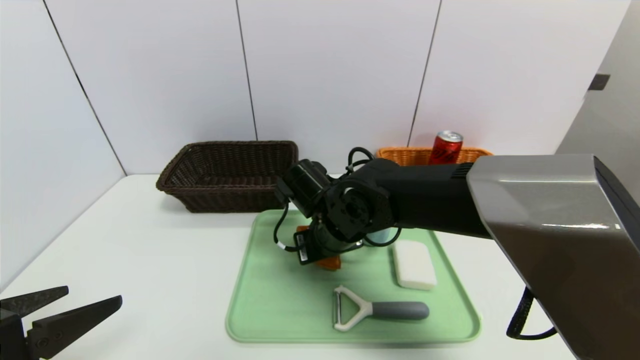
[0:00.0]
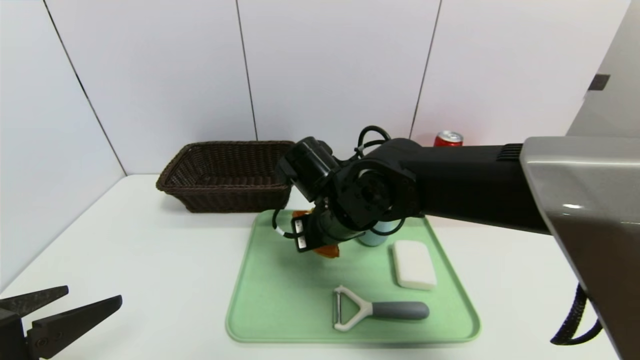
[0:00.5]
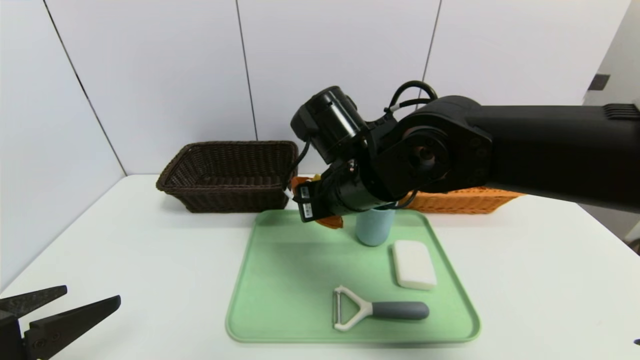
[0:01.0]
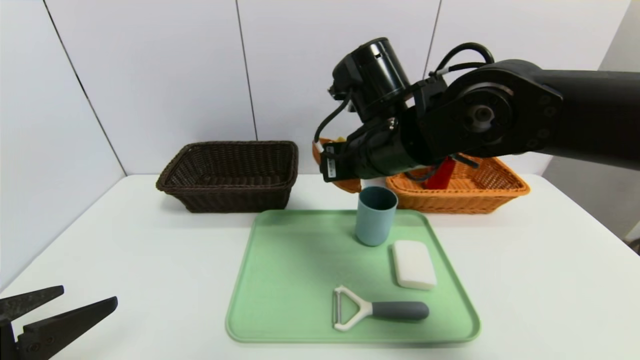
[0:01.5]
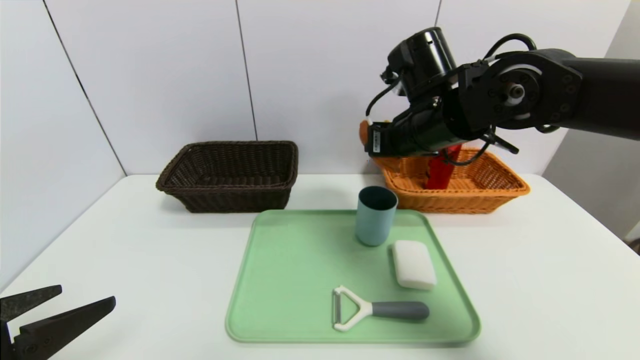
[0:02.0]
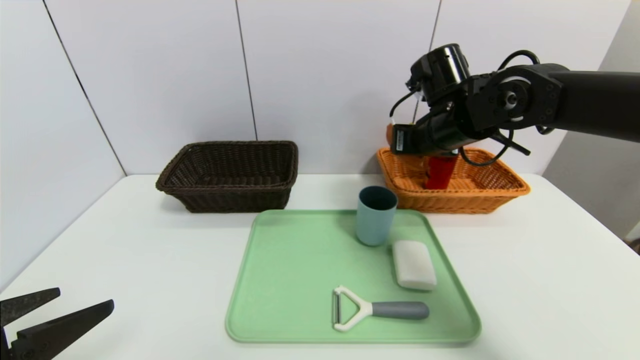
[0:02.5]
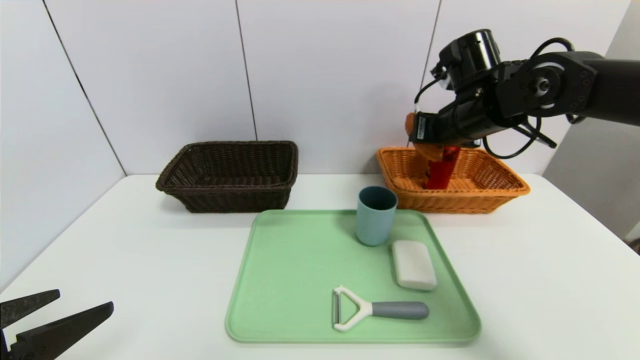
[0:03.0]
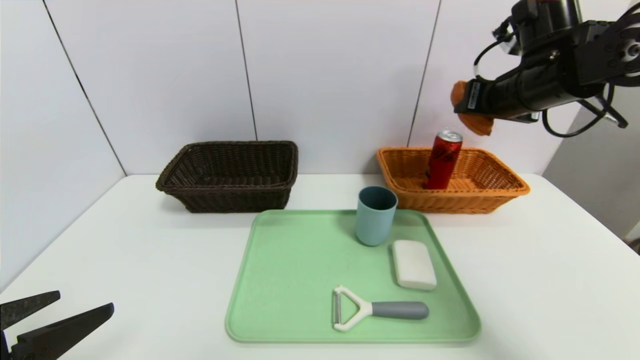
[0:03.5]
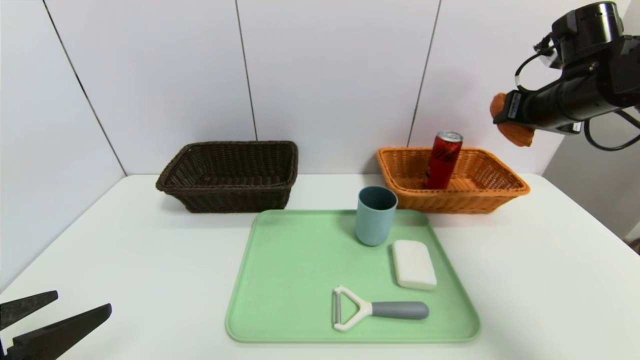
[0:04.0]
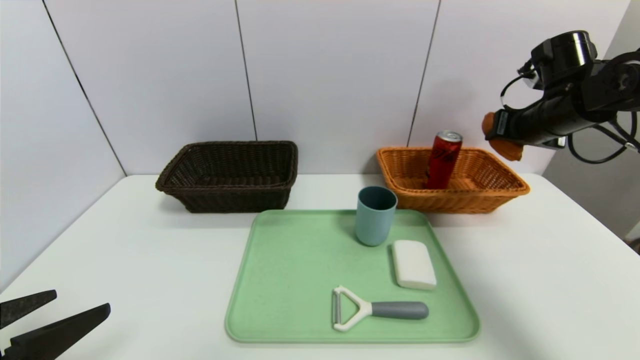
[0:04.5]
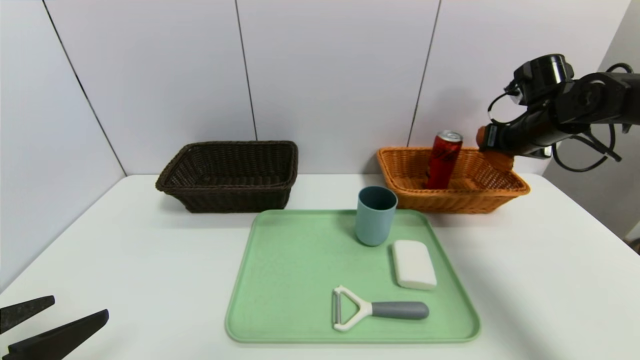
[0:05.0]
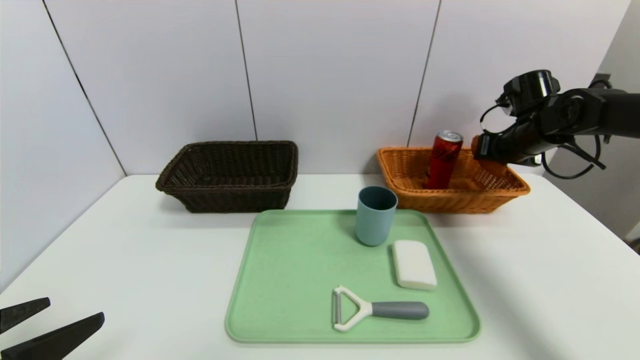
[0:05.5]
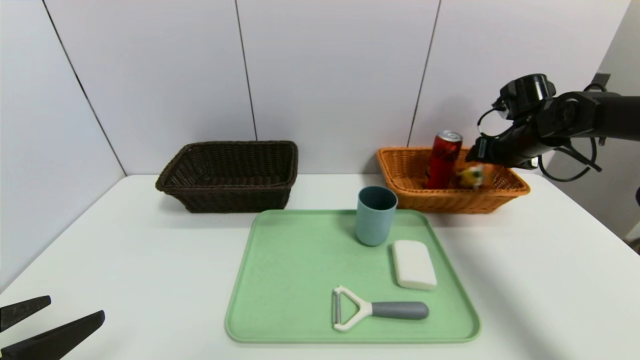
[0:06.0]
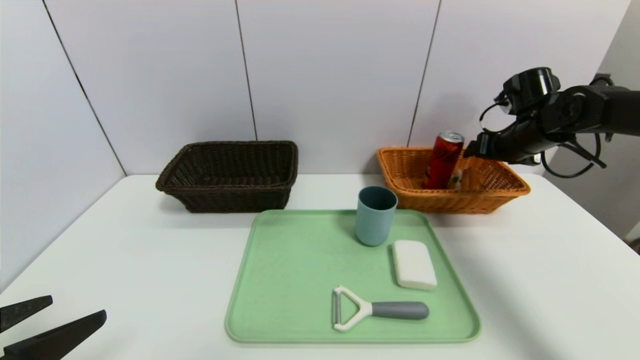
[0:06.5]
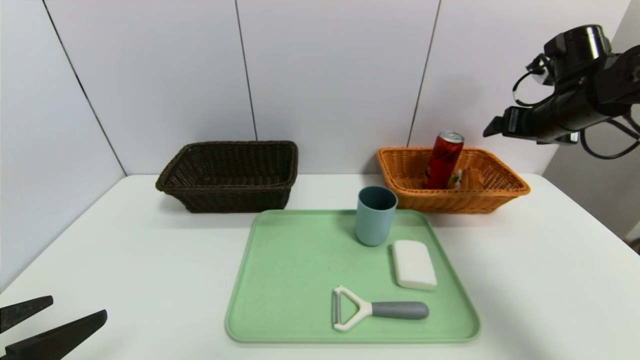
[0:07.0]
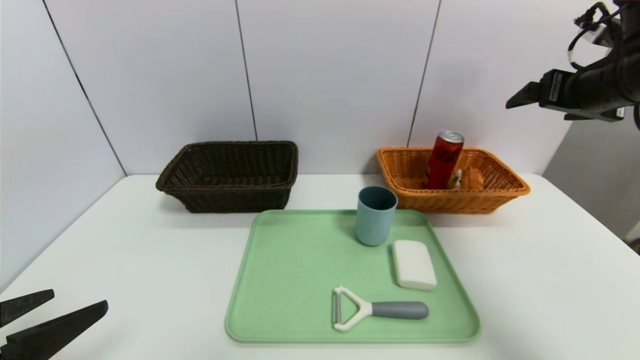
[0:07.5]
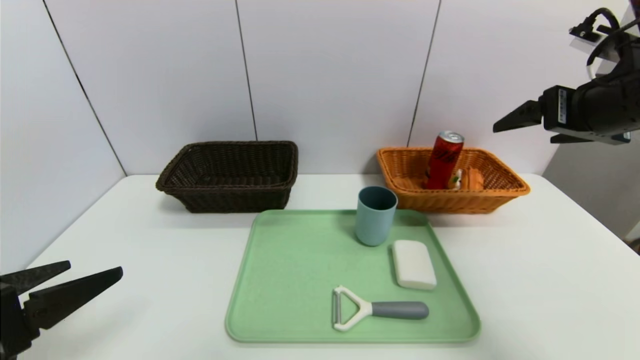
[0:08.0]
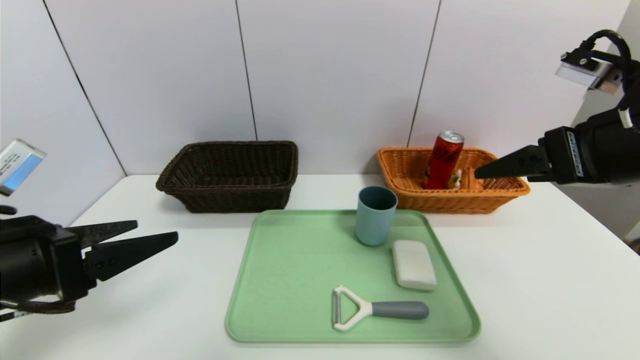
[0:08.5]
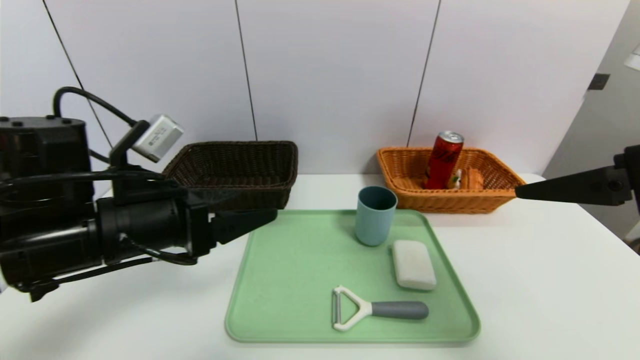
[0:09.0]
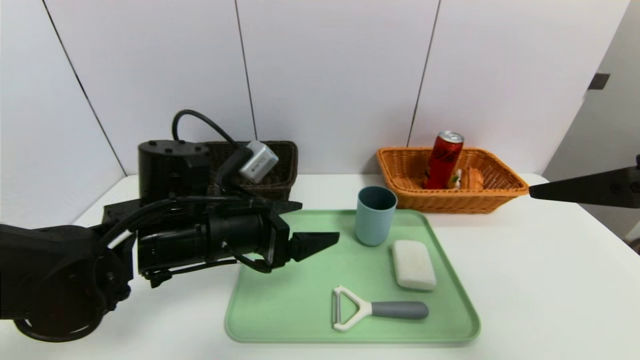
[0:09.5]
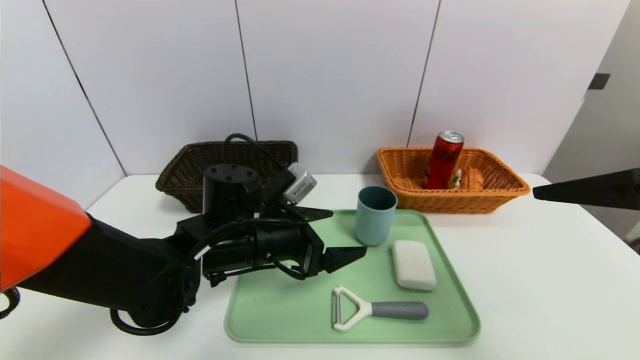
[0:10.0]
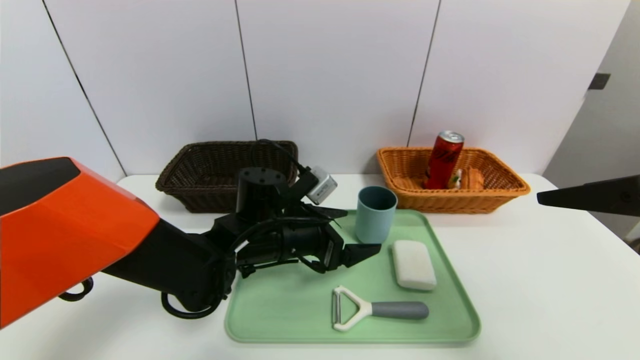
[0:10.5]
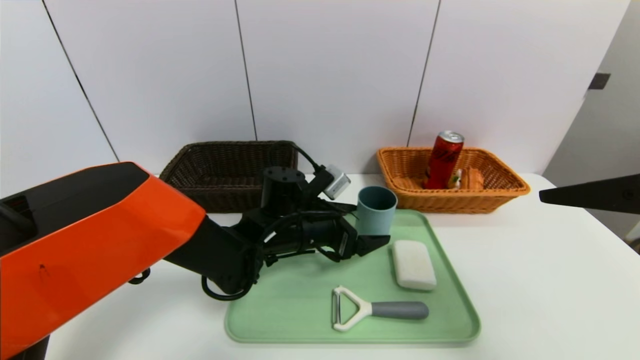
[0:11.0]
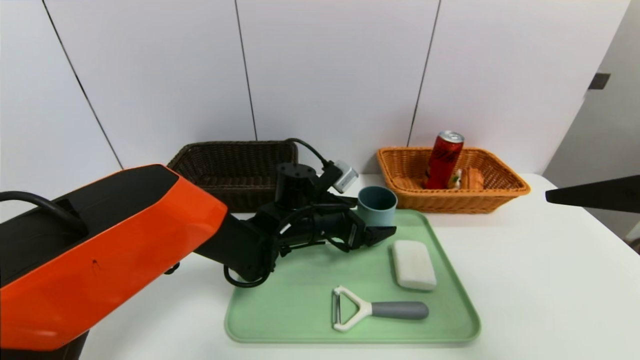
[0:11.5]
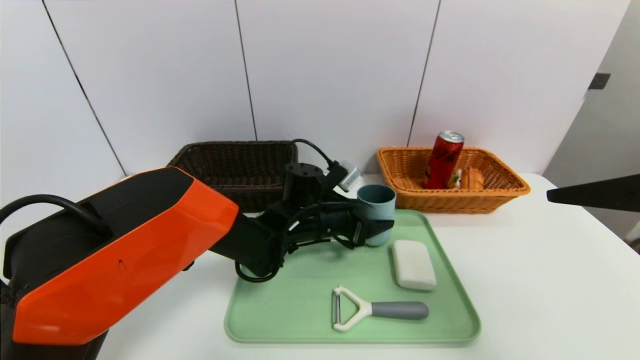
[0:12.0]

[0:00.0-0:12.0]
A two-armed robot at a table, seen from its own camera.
Task of the whole recording: place the food in the right basket with the right gripper, and place the non food items in the left basket with the left gripper.
Step, 0:00.0 to 0:07.0: Grasp the waffle and put it in the right basket.
0:00.0 to 0:02.0: The right gripper travels upward and to the right by about 20 cm.
0:02.0 to 0:04.0: The right gripper is displaced to the right by about 20 cm.
0:04.0 to 0:06.0: The right gripper moves downward and forward, some 10 cm, and opens its fingers.
0:06.0 to 0:08.0: The right gripper shifts approximately 20 cm backward and upward, and opens up.
0:08.0 to 0:10.0: The right gripper heads backward, covering about 10 cm; the left gripper is displaced to the right and forward by approximately 25 cm.
0:10.0 to 0:12.0: The left gripper goes about 10 cm forward and to the right, and closes.

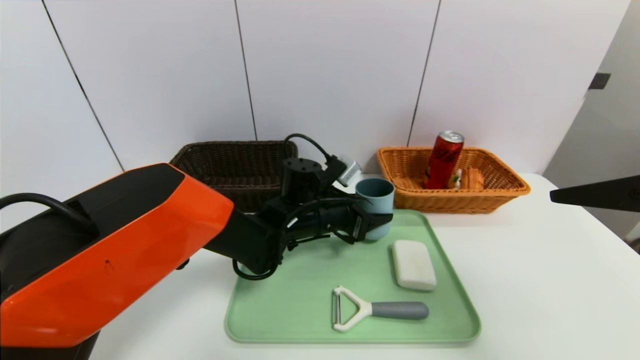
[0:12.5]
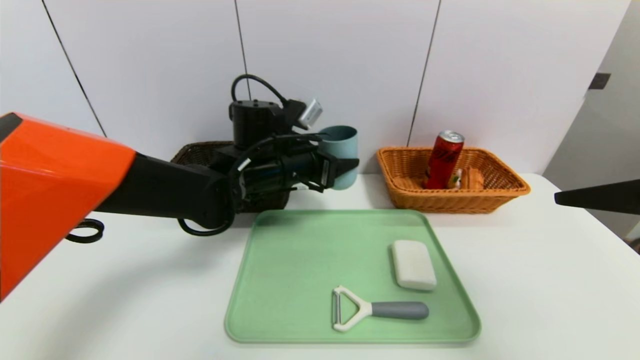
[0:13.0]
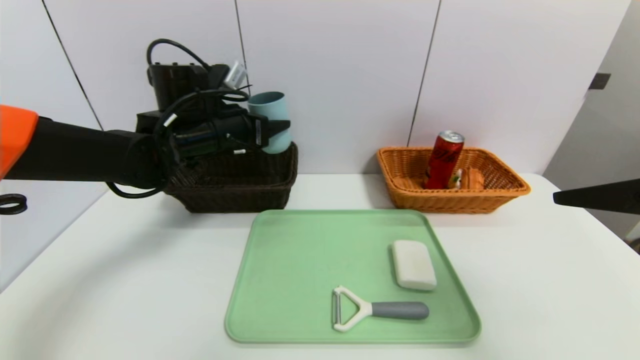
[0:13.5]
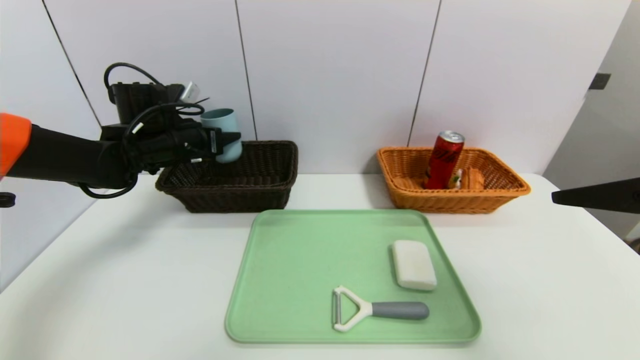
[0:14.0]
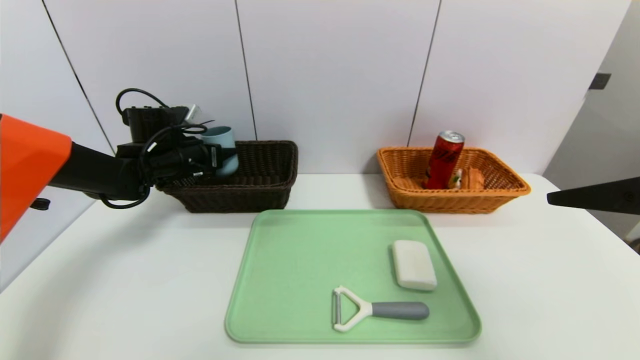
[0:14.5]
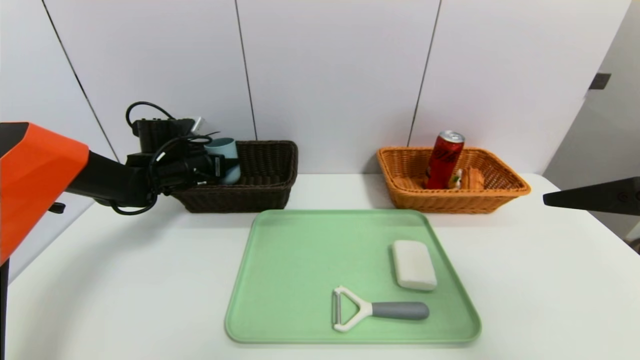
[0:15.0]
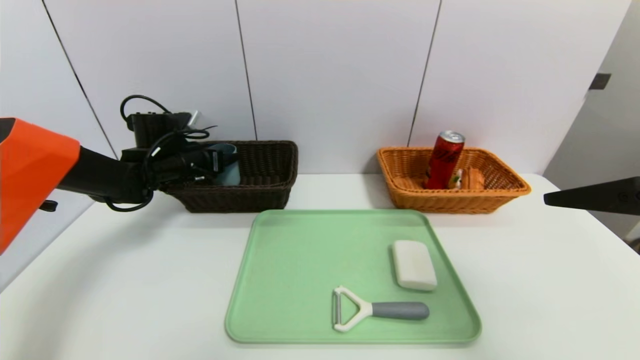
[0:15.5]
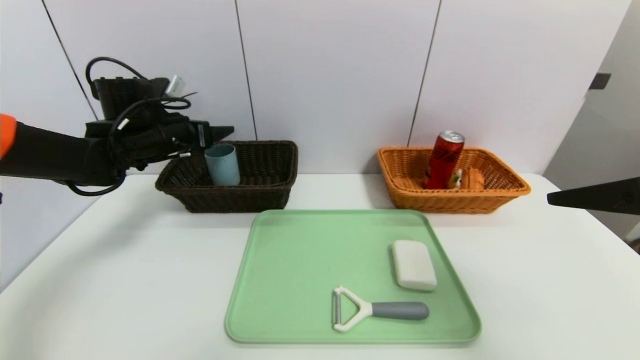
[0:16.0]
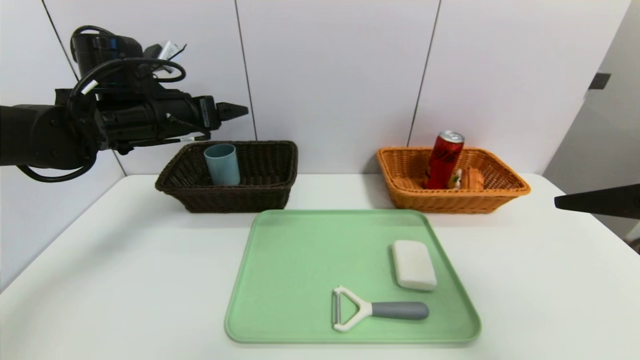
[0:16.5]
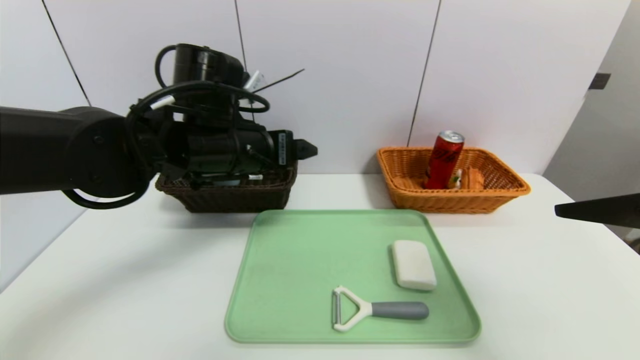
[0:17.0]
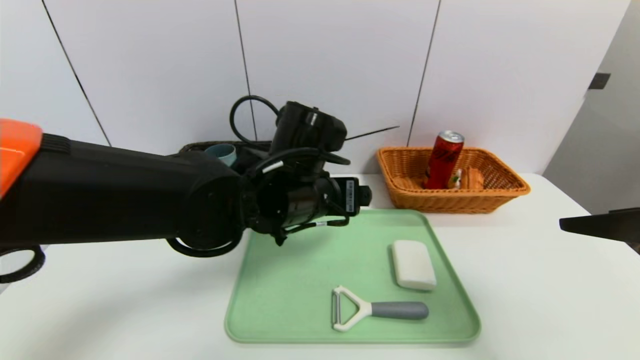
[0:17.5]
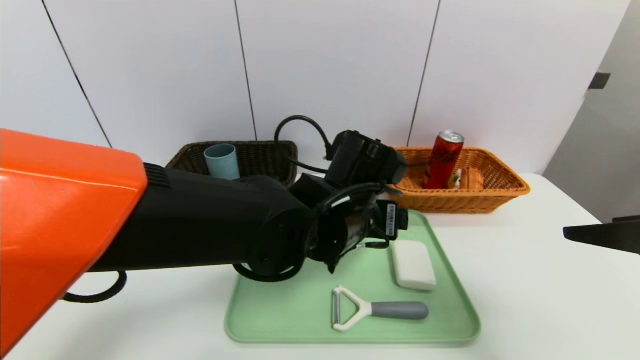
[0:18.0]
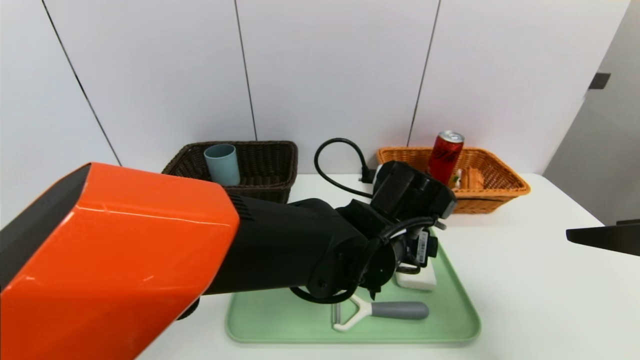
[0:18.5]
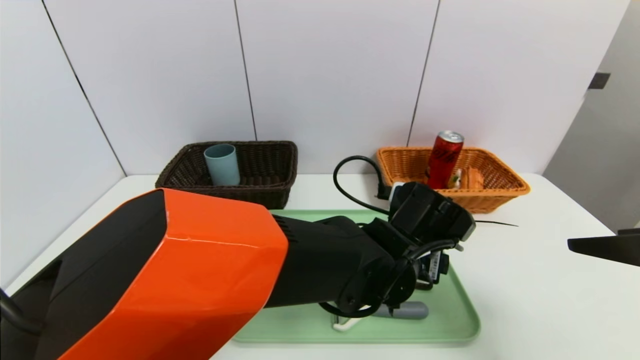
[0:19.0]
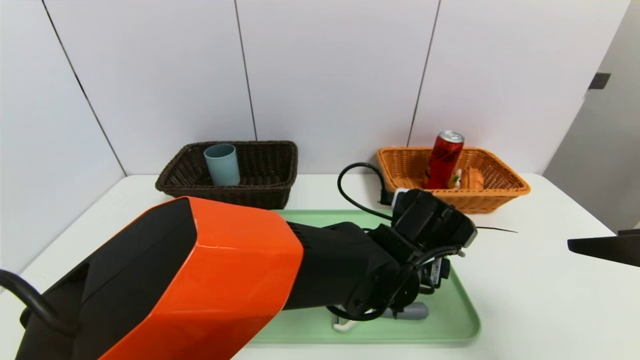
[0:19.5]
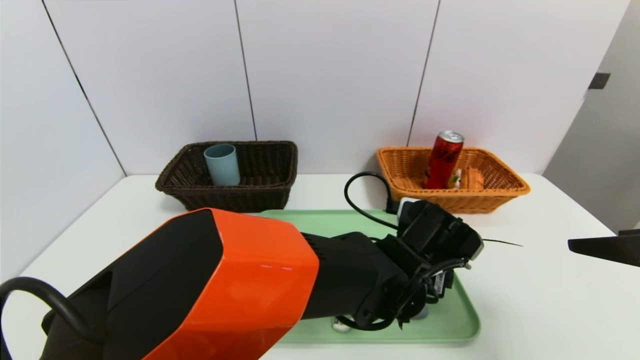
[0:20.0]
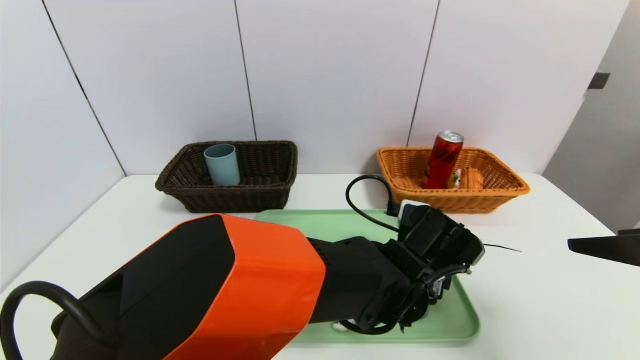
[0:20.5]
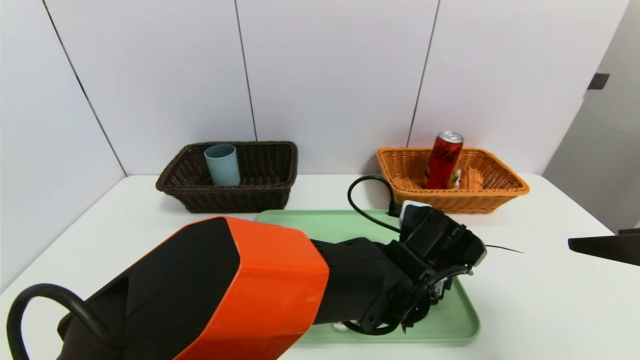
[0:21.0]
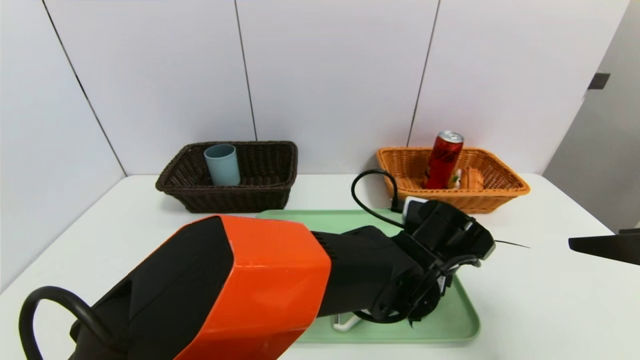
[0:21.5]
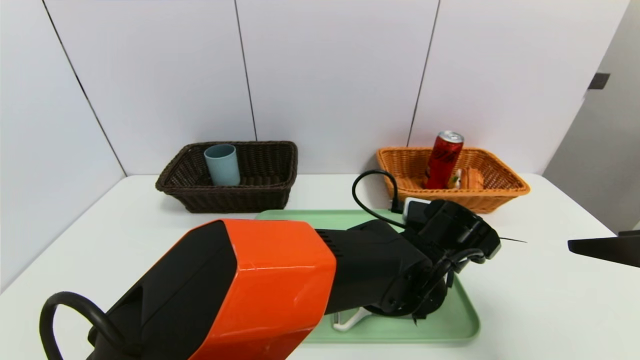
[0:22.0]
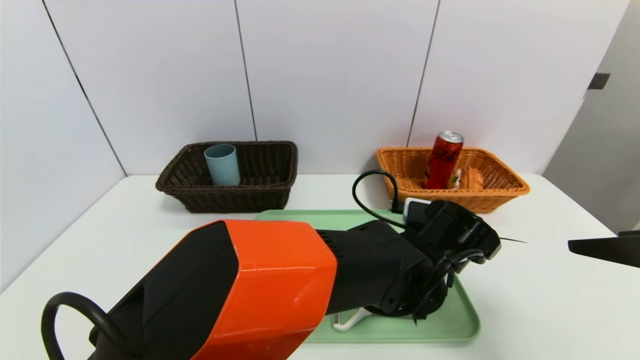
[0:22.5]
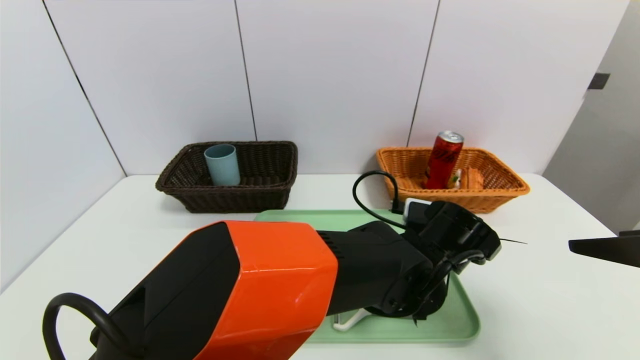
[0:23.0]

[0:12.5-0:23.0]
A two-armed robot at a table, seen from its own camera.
Task of the whole recording: place the food in the right basket with the right gripper, and place the non food items in the left basket with the left gripper.
Step, 0:12.5 to 0:16.5: Grasp the blue cup and put it in the left basket.
0:12.5 to 0:14.5: The left gripper travels to the left by some 25 cm.
0:14.5 to 0:16.5: The left gripper goes some 15 cm upward and backward, and opens.
0:16.5 to 0:19.0: The left gripper shifts roughly 35 cm to the right and downward.
0:21.0 to 0:23.0: The left gripper closes.
